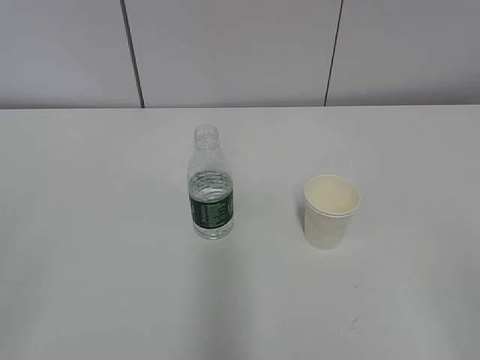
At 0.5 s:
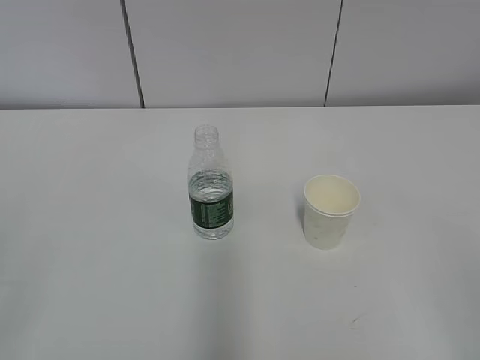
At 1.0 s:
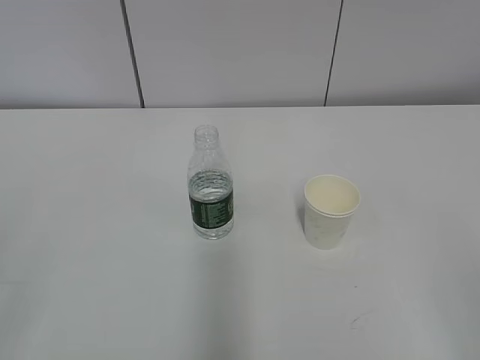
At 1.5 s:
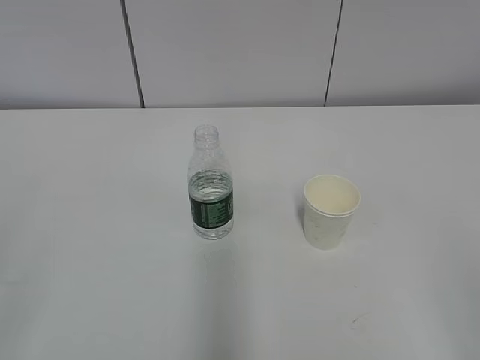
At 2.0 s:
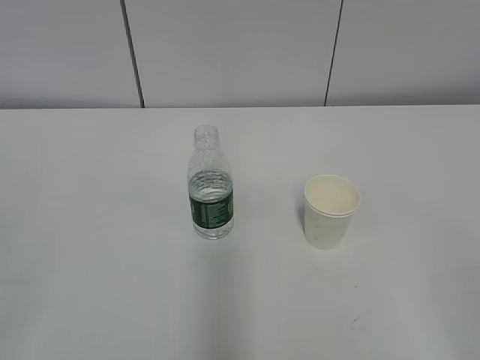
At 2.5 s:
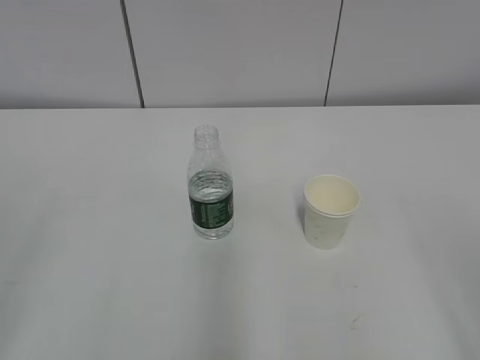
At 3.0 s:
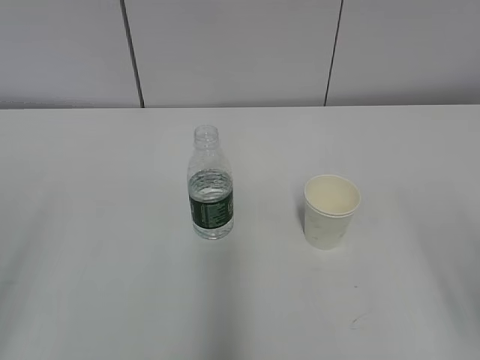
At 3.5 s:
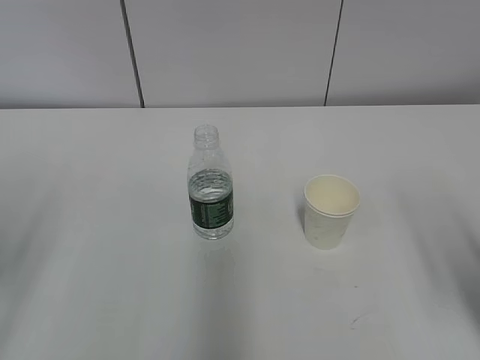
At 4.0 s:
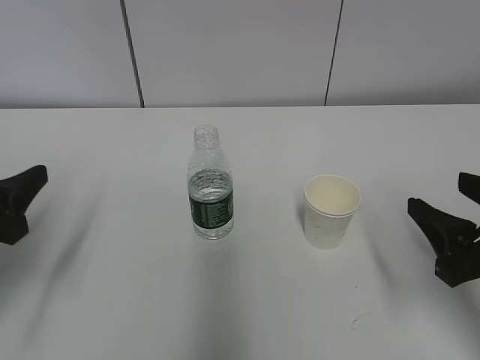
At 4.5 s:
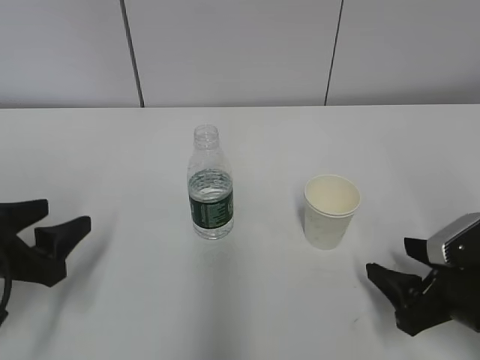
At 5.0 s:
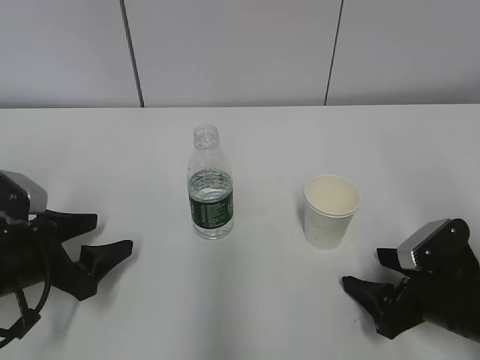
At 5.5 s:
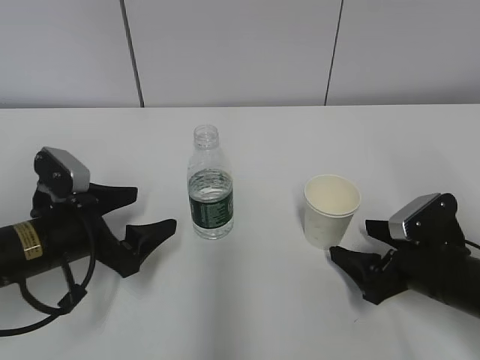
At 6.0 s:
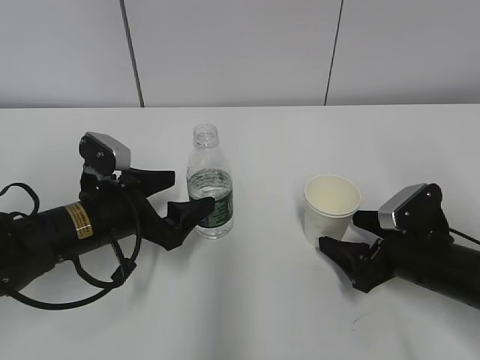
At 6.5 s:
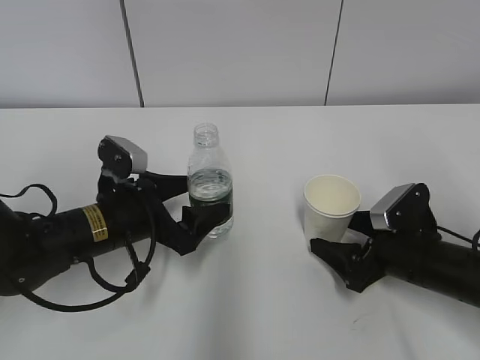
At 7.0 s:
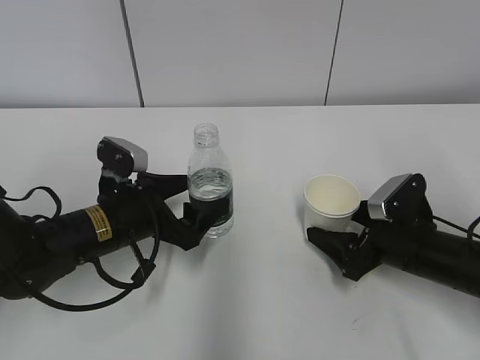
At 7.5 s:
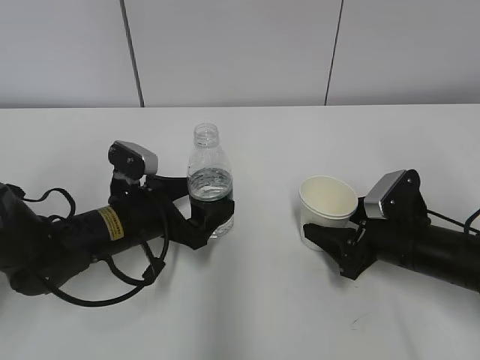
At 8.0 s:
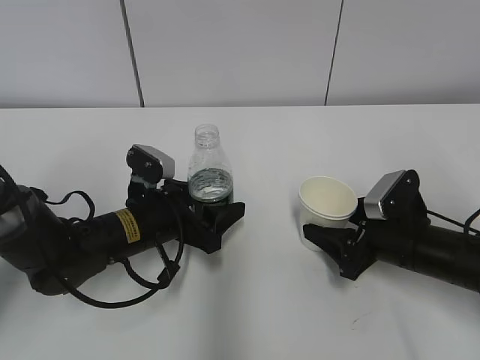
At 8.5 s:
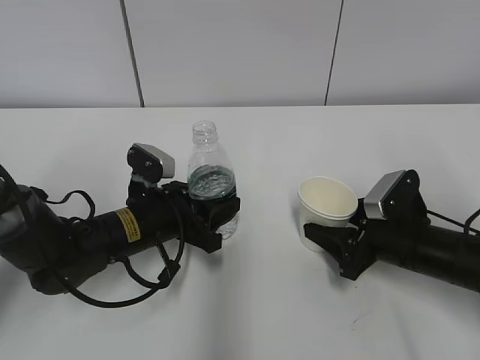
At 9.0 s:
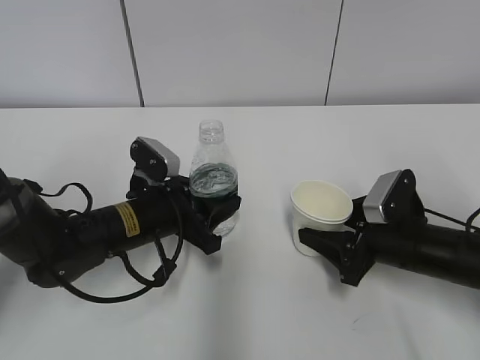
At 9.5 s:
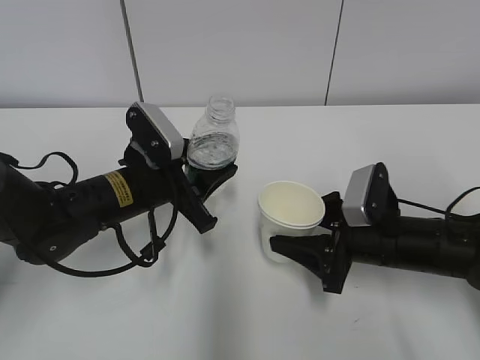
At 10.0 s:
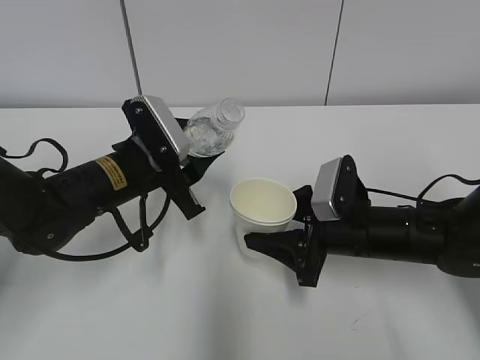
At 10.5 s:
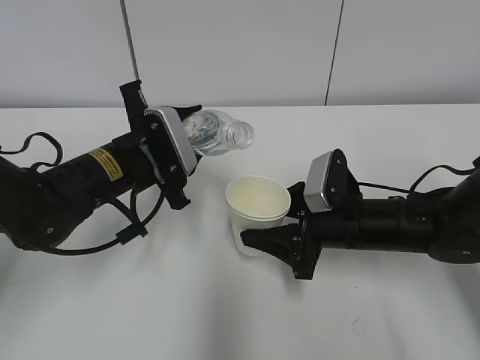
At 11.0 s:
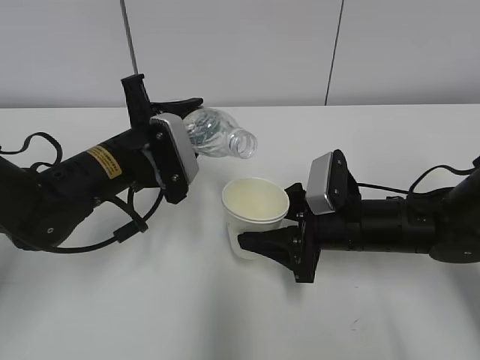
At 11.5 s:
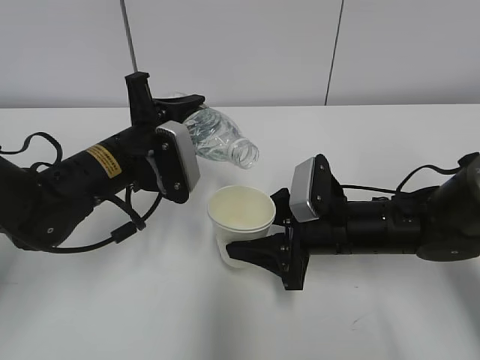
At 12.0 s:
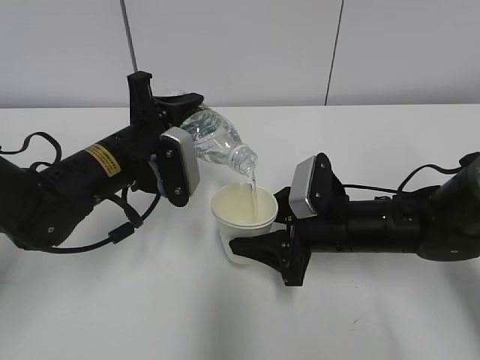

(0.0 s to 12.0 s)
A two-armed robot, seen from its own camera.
Step, 0.0 s - 7.0 s: Grab the paper cup with the right hand.
Step, 7.5 s - 9.5 s: Lift the paper cup with the right hand.
2.0 s - 4.0 s: The two grippers go roughly 20 cm forward and downward.
4.0 s - 6.0 s: The left gripper travels to the right, forward and downward by roughly 15 cm, and opens up. The right gripper is displaced downward and forward by about 15 cm, and opens up.
6.0 s - 8.0 s: The right gripper closes. The left gripper changes place by some 5 cm.
8.0 s - 10.0 s: The left gripper travels upward by roughly 5 cm, and closes; the right gripper goes roughly 5 cm to the left.

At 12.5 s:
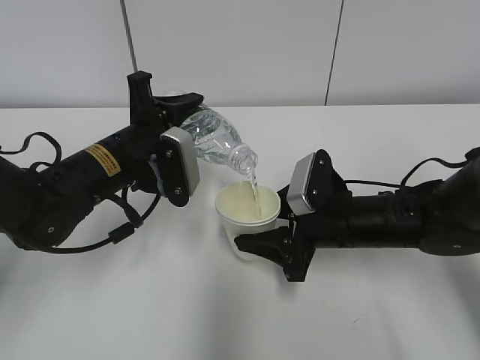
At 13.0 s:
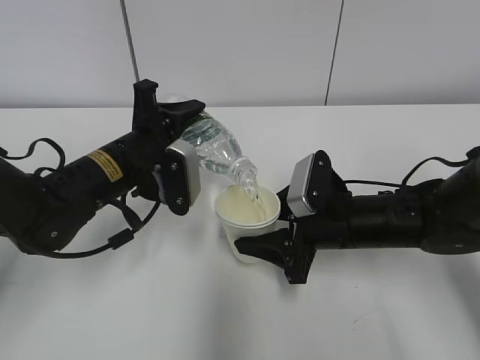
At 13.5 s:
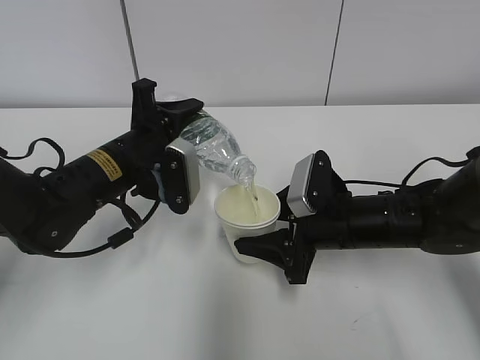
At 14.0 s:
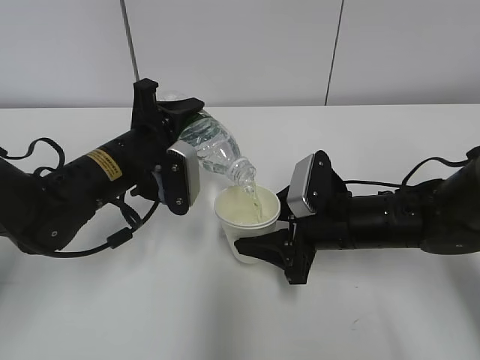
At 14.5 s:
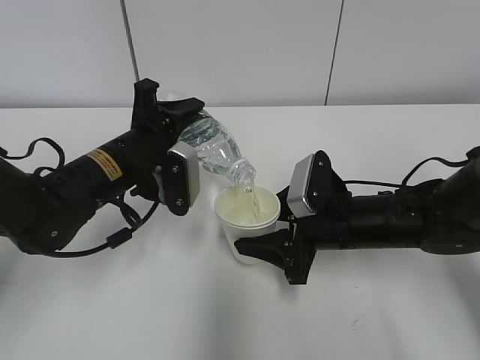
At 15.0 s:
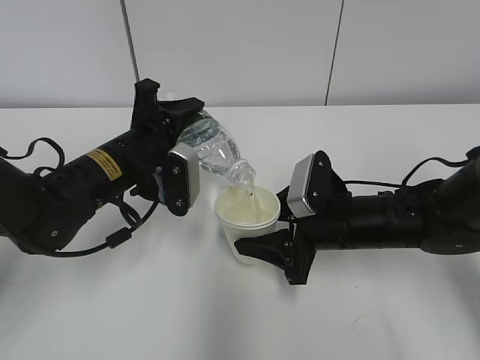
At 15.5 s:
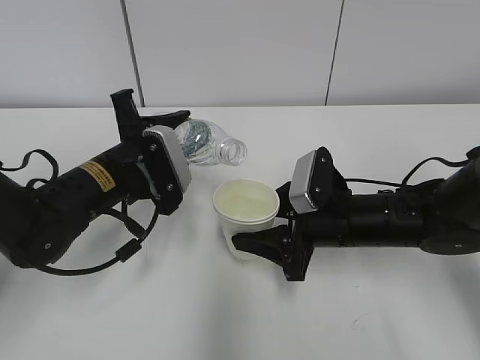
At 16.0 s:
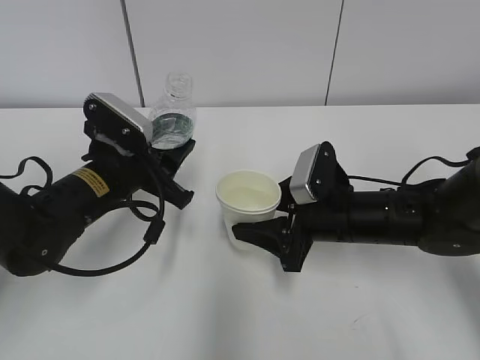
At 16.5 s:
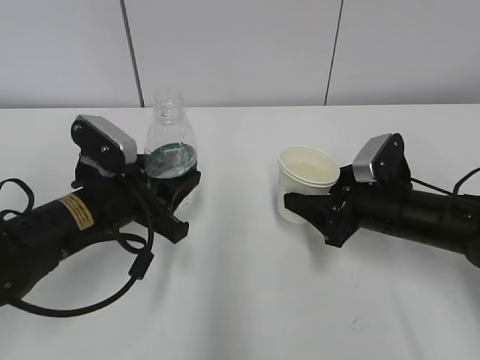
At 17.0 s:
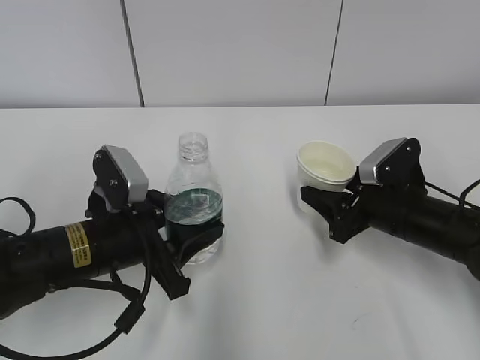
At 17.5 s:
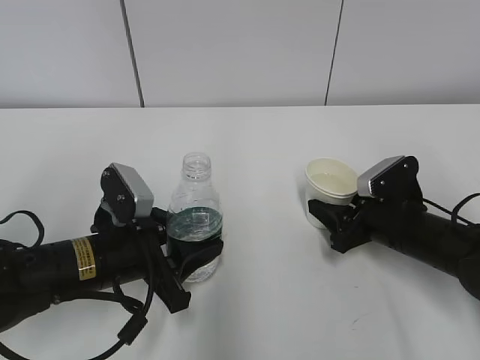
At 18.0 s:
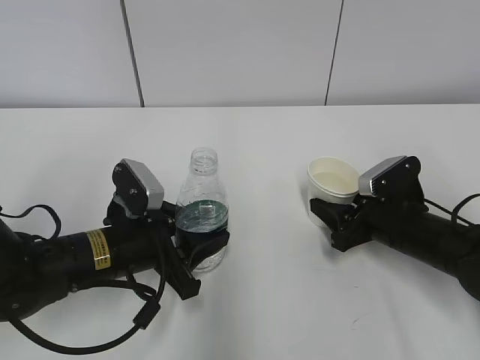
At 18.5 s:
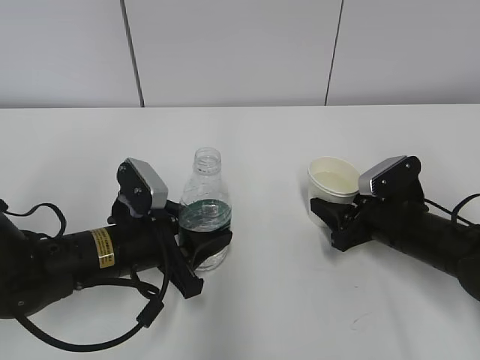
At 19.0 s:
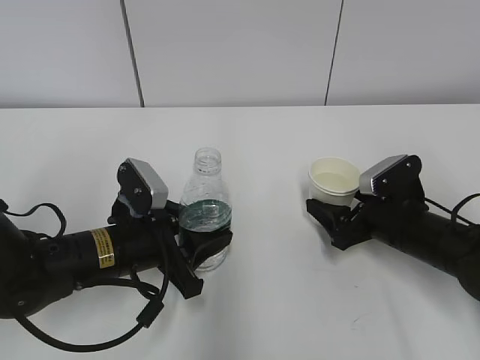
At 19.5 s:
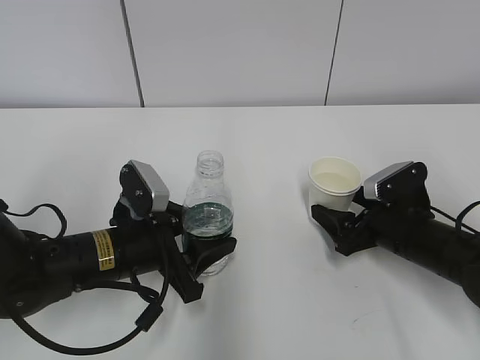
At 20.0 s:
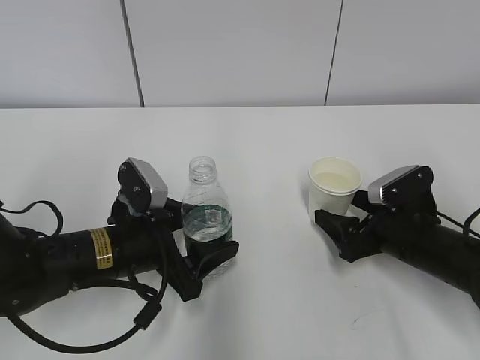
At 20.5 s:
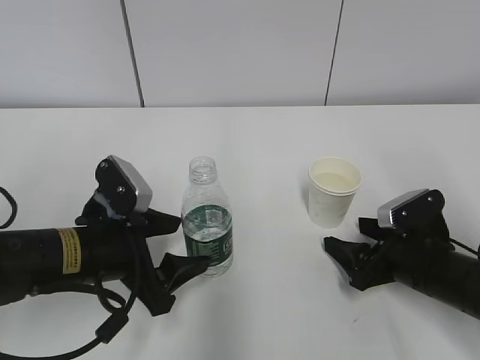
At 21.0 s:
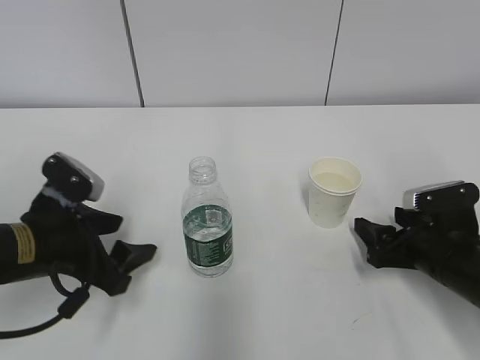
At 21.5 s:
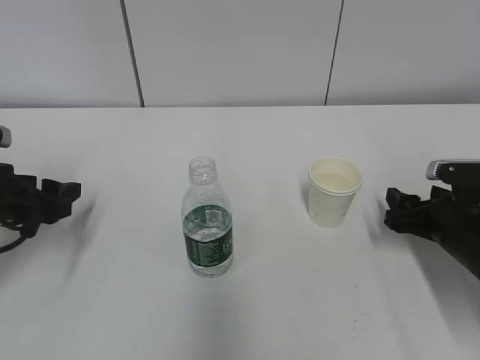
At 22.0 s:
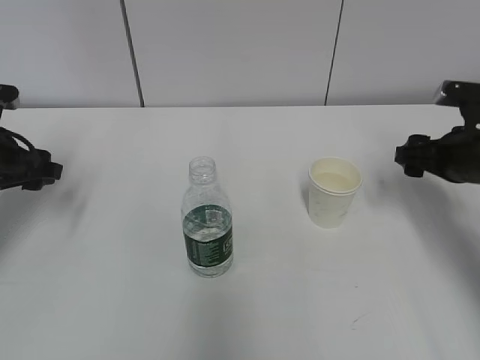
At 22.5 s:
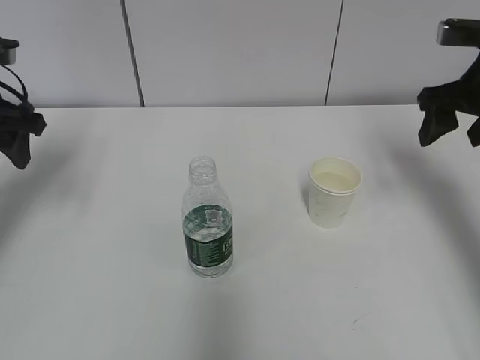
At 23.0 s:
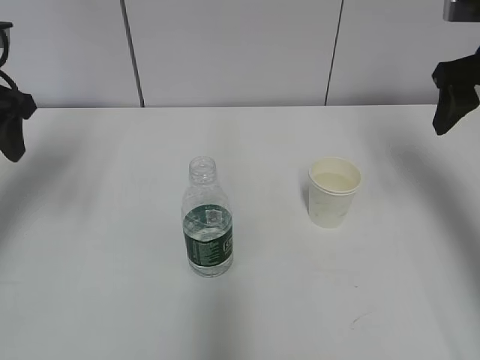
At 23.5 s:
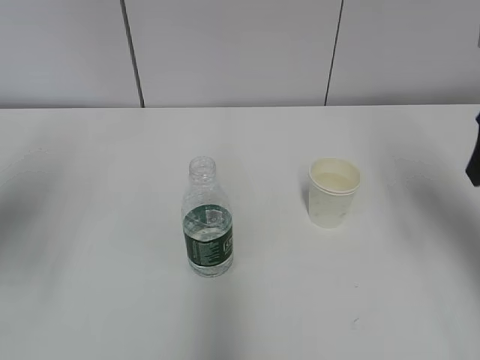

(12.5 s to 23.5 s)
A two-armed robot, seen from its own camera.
Step, 13.5 s - 15.5 s: Place the paper cup with the right hand.
Step, 16.0 s - 16.5 s: Place the water bottle with the left hand.
12.5 s - 14.5 s: There are only small adjustments of the grippers.
16.0 s - 18.0 s: The right gripper moves to the right, approximately 10 cm. The left gripper moves backward and downward, approximately 5 cm.
18.0 s - 20.0 s: The left gripper opens up. Meanwhile the right gripper opens its fingers.
20.0 s - 21.5 s: The right gripper shifts by roughly 5 cm. Meanwhile the left gripper travels to the left by about 15 cm.
21.5 s - 23.5 s: Both grippers travel together upward, approximately 20 cm.

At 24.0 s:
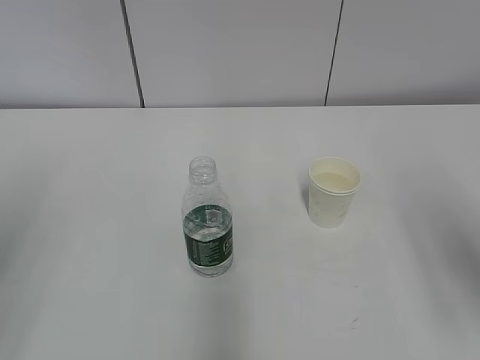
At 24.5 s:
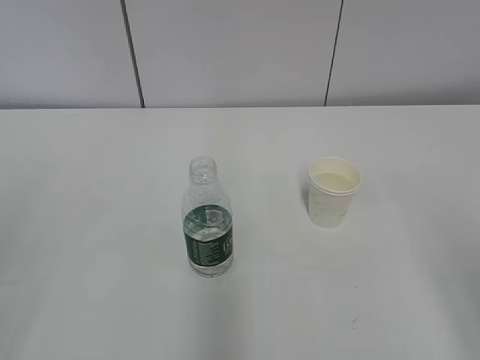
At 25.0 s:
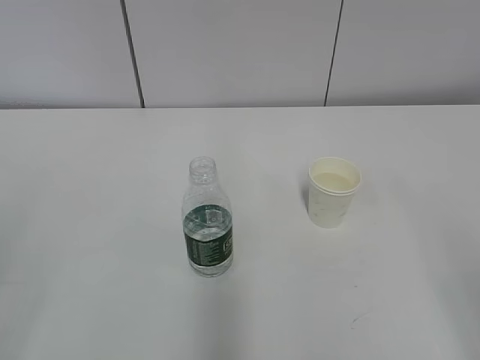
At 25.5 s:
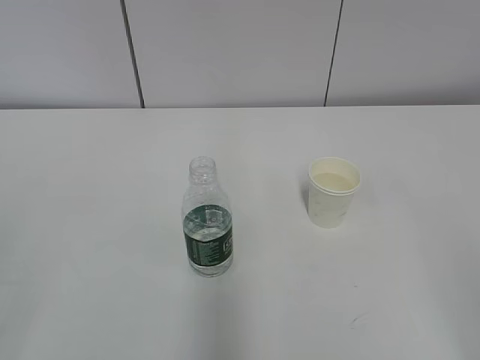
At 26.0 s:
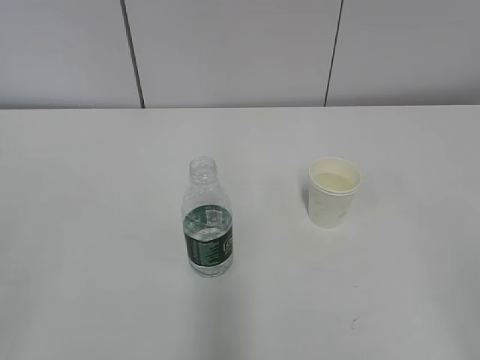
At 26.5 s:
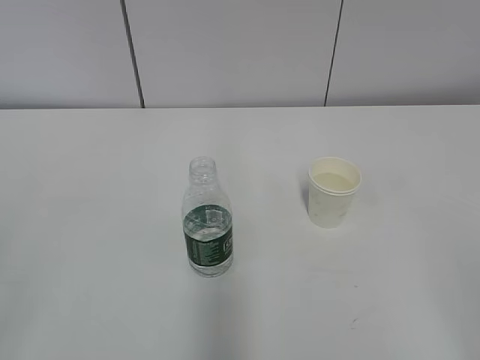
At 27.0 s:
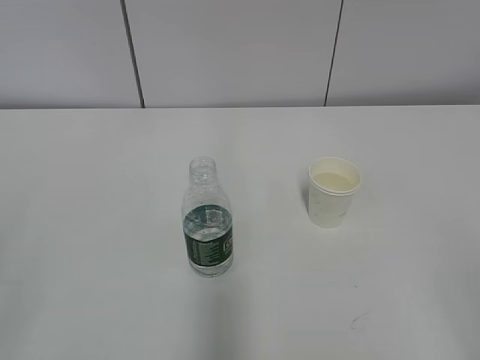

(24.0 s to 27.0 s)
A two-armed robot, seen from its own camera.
24.0 s - 25.5 s: The right gripper shifts roughly 15 cm backward.
